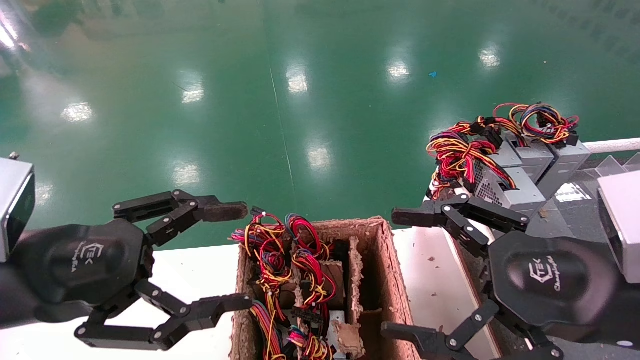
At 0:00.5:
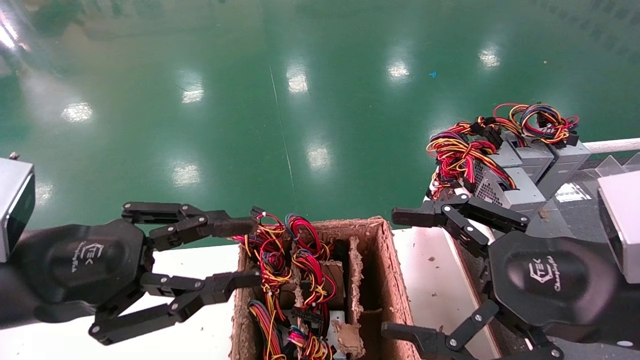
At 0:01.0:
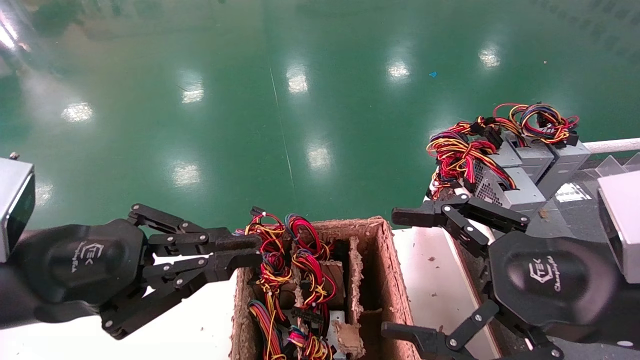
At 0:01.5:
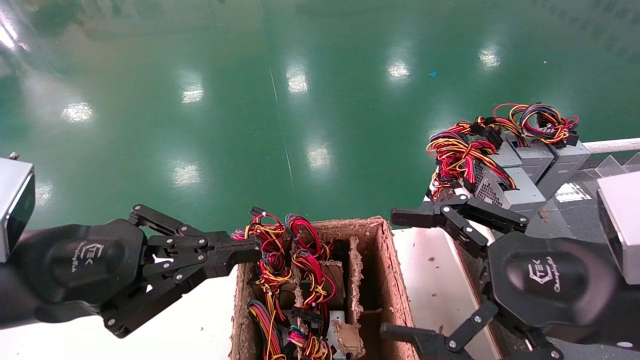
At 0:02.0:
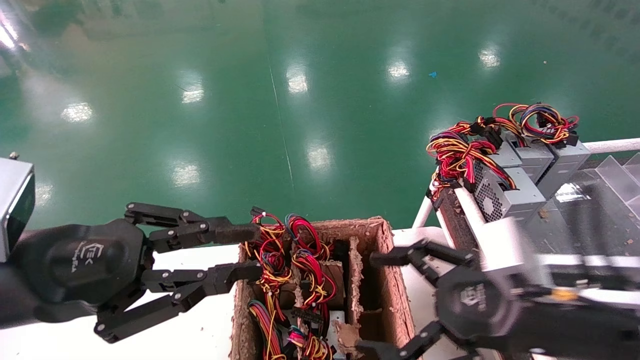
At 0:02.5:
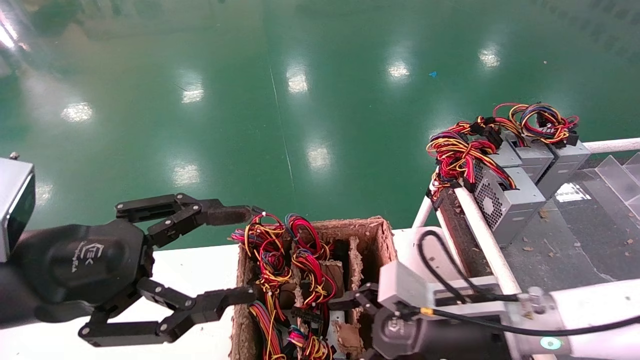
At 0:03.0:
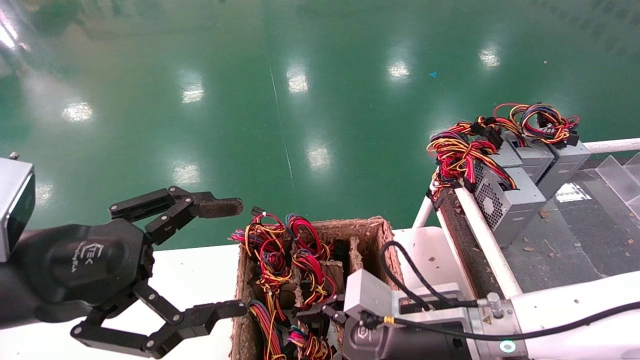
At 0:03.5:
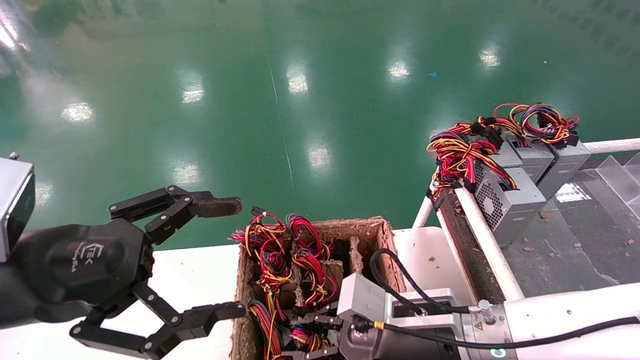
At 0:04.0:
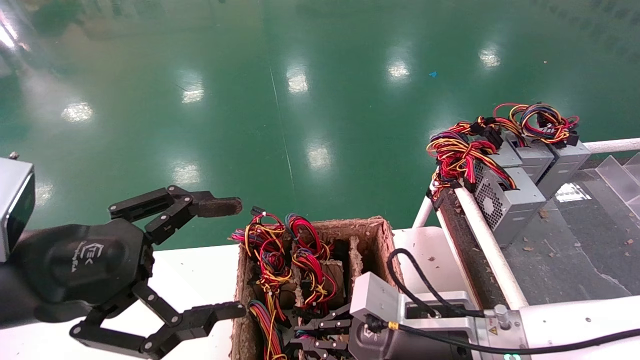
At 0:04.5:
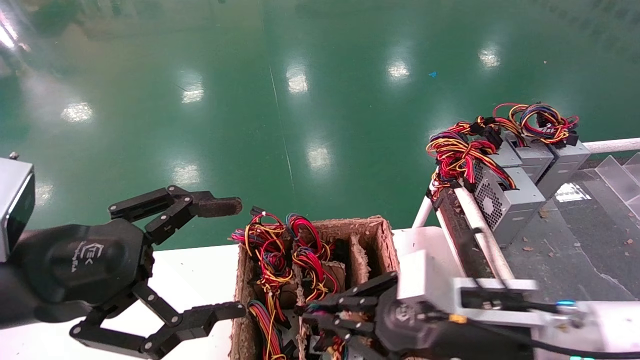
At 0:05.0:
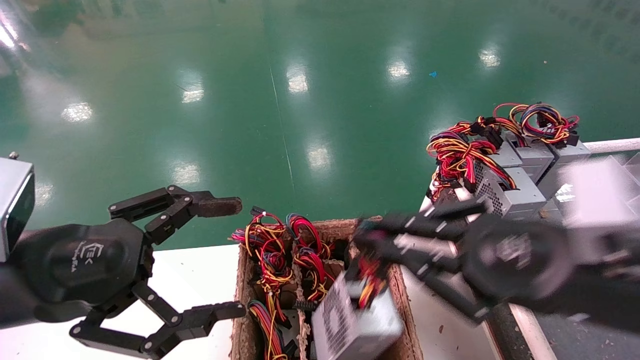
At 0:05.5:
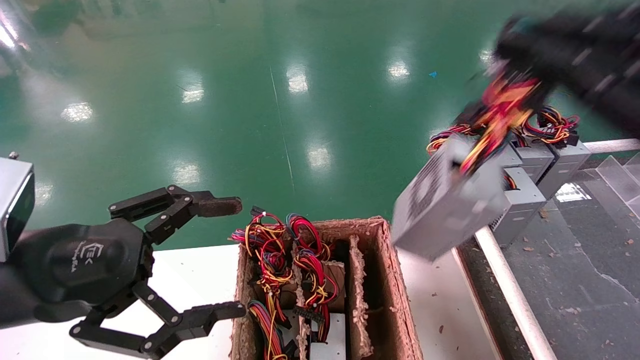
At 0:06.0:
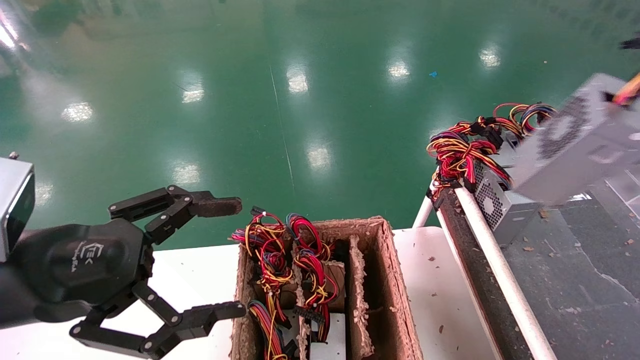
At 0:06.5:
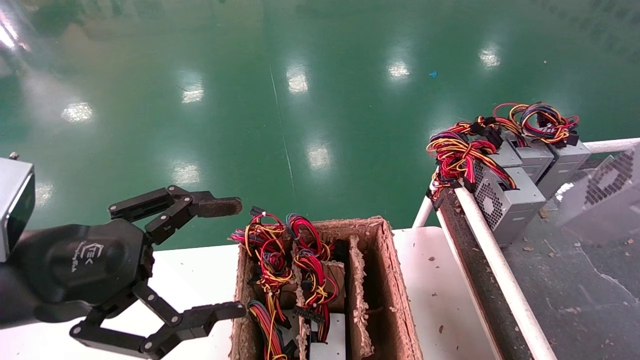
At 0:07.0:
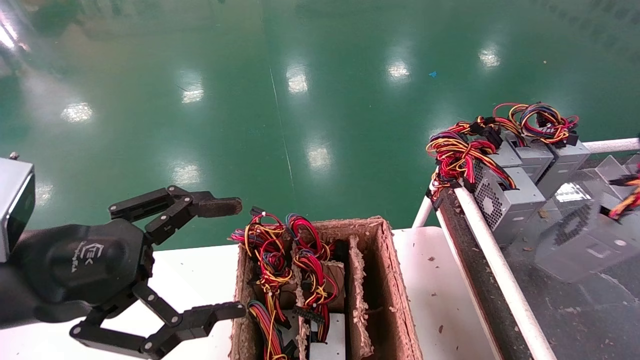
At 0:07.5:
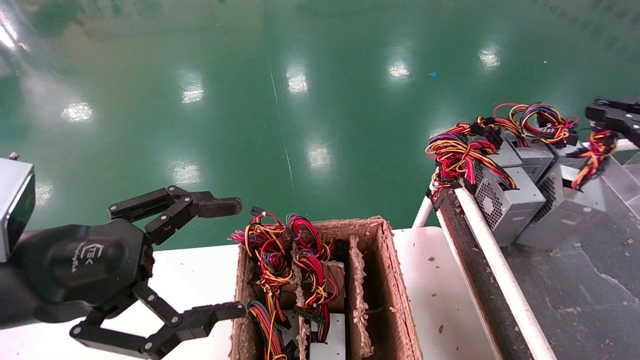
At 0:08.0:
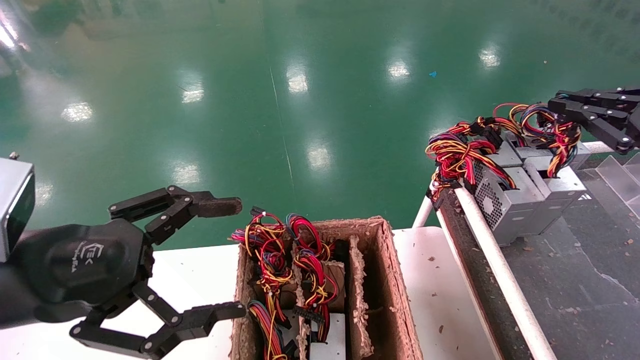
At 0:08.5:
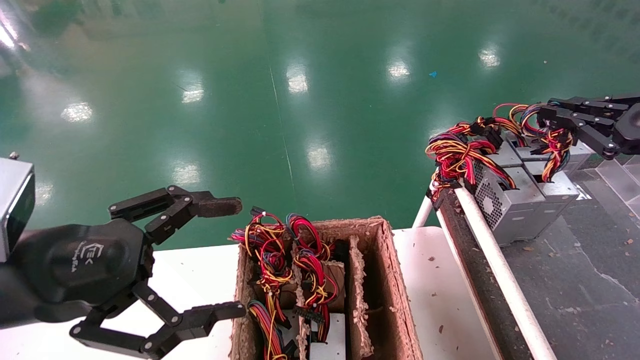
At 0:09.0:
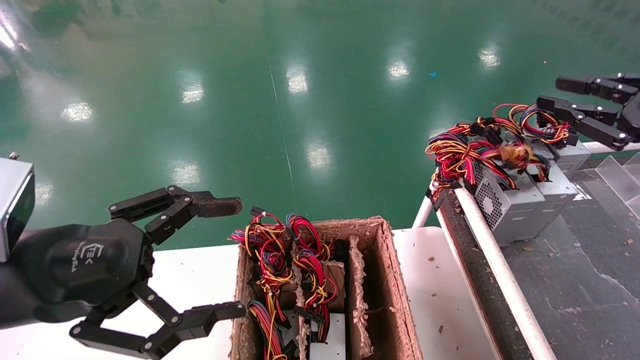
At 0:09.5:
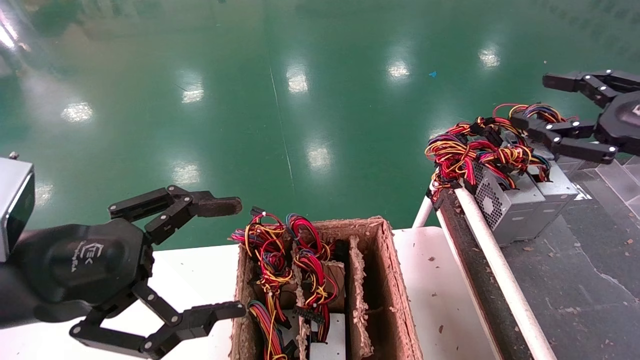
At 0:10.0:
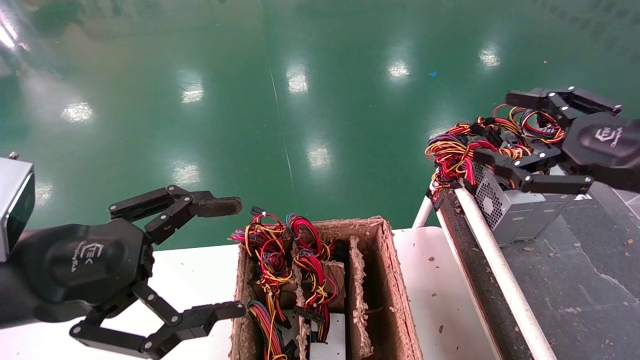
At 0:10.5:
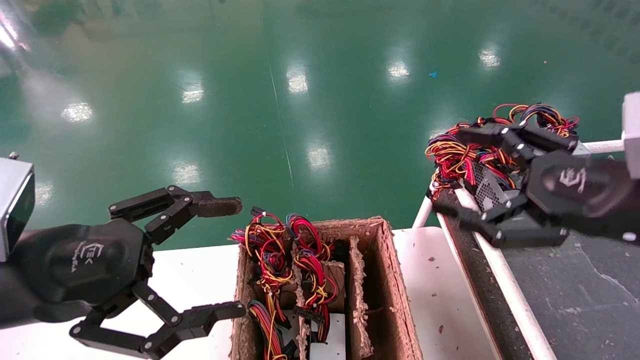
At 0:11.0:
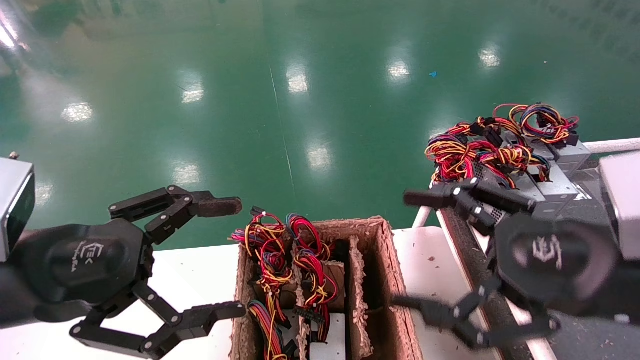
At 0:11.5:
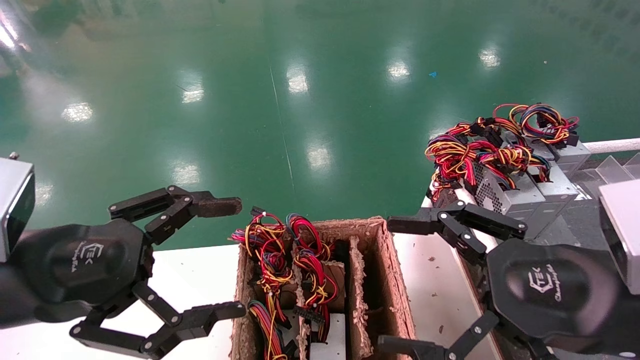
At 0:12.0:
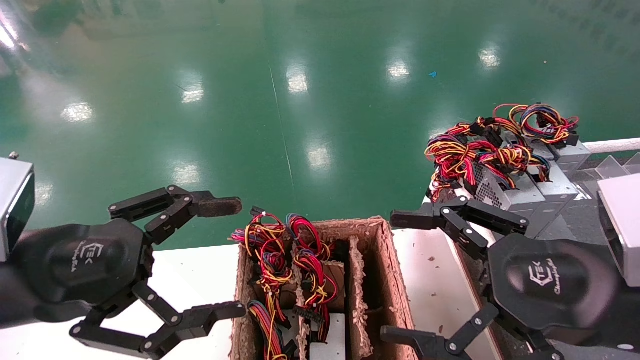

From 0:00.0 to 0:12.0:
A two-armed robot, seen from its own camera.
Step, from 0:02.0 to 0:04.0: Grab and lift the power supply from the large box.
Step, from 0:04.5 to 0:08.5: Place the power supply on the operating table.
From 0:00.0 to 0:02.0: The left gripper closes up. Meanwhile the right gripper moves downward, approximately 5 cm.
From 0:02.0 to 0:04.0: The left gripper opens up; the right gripper shifts approximately 10 cm to the left, downward and forward, and closes up.
From 0:04.0 to 0:06.0: The right gripper is displaced upward, to the right and backward by roughly 40 cm.
From 0:06.0 to 0:08.0: The right gripper travels forward and downward by some 15 cm.
From 0:08.0 to 0:10.0: The right gripper goes approximately 10 cm to the left, and opens its fingers.
From 0:10.0 to 0:12.0: The right gripper goes roughly 15 cm to the left, backward and downward.

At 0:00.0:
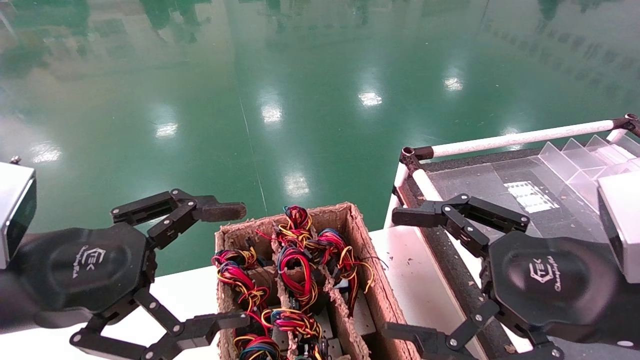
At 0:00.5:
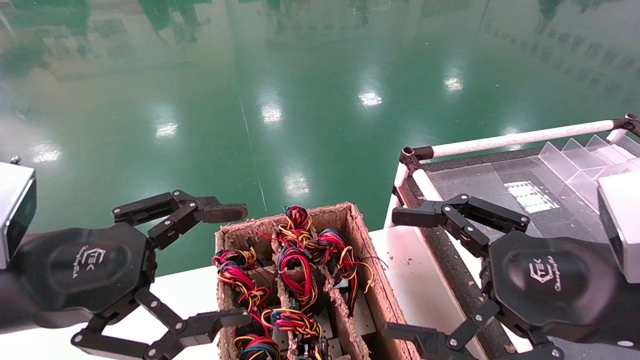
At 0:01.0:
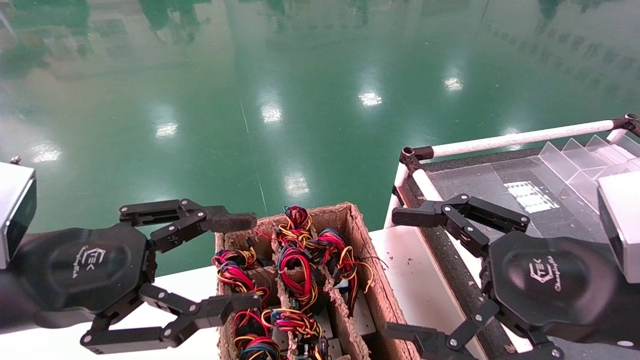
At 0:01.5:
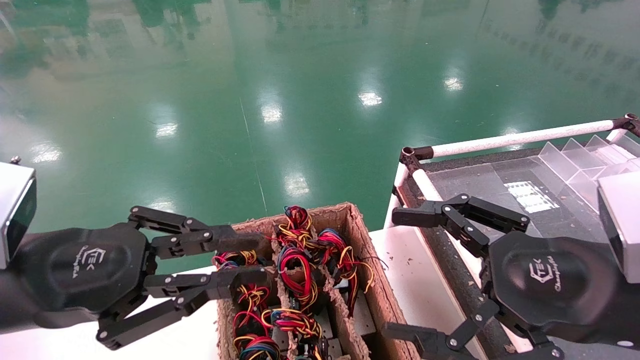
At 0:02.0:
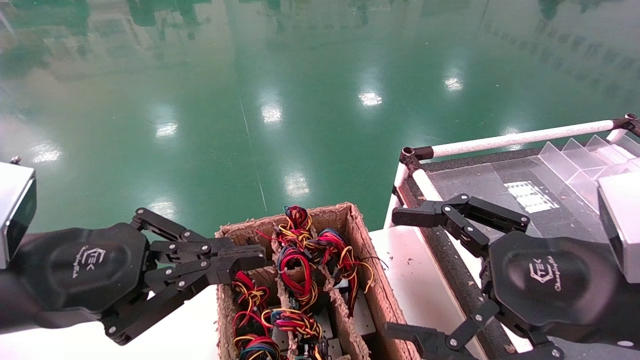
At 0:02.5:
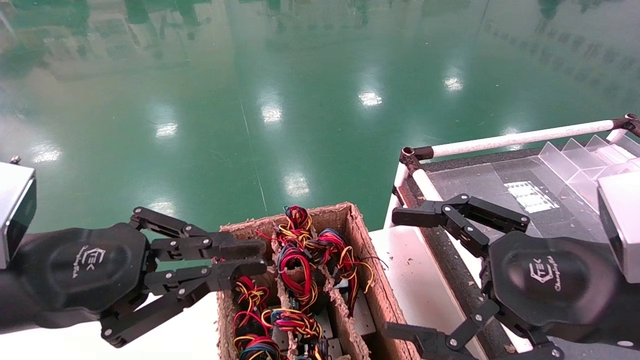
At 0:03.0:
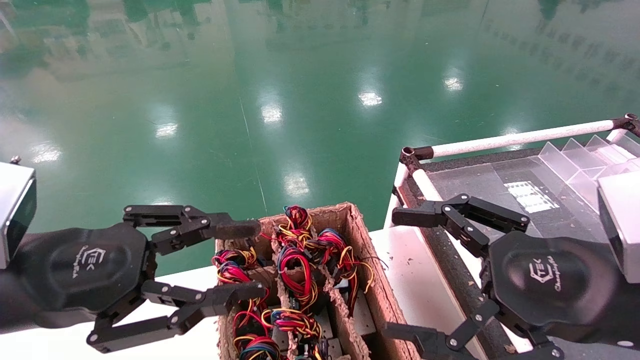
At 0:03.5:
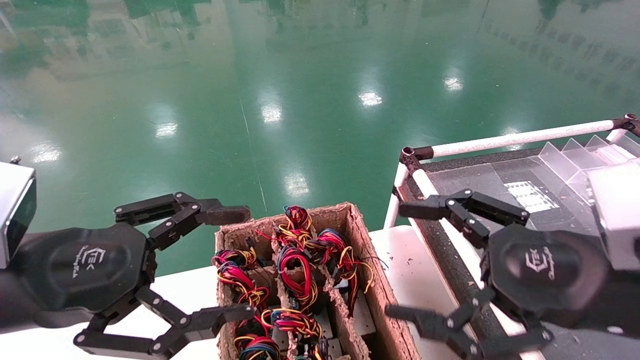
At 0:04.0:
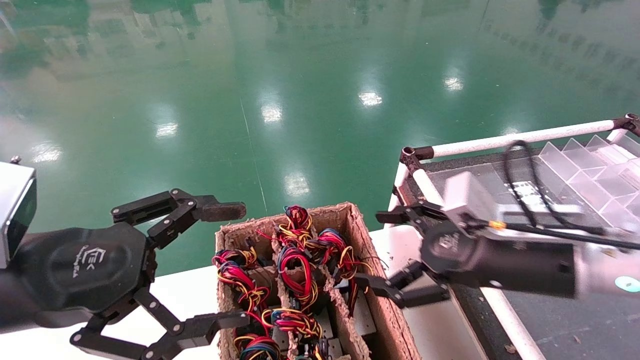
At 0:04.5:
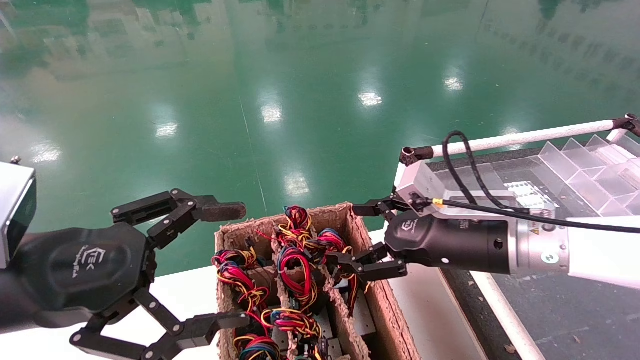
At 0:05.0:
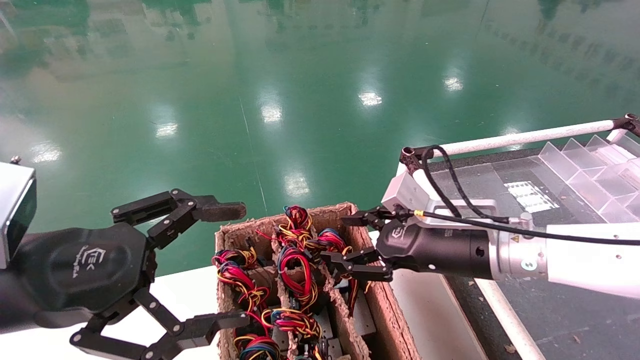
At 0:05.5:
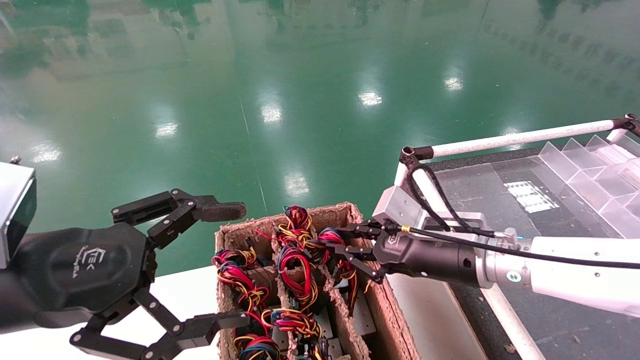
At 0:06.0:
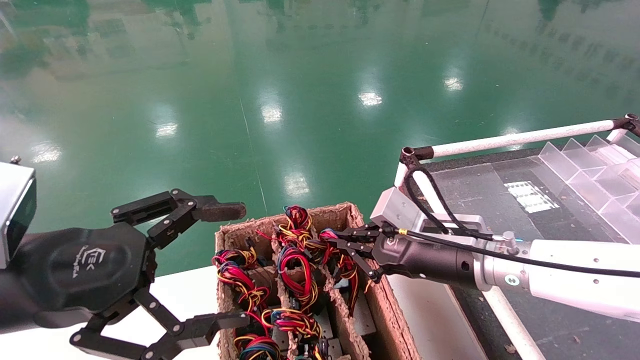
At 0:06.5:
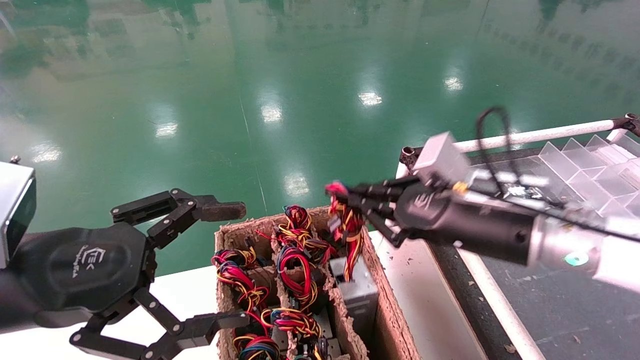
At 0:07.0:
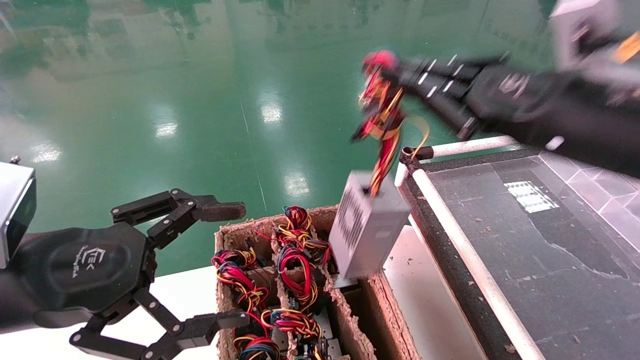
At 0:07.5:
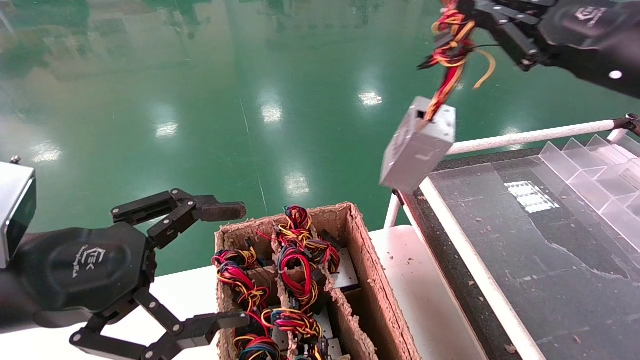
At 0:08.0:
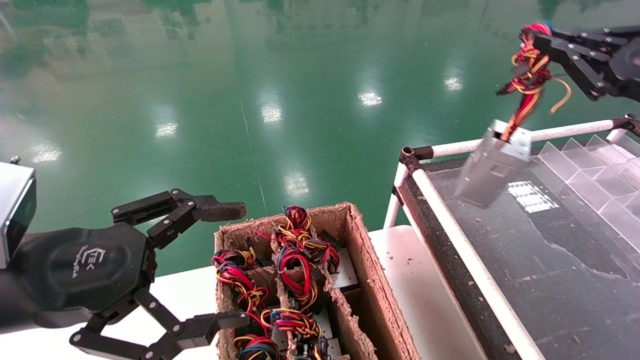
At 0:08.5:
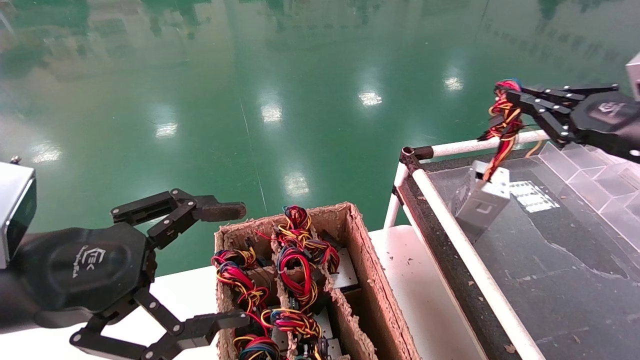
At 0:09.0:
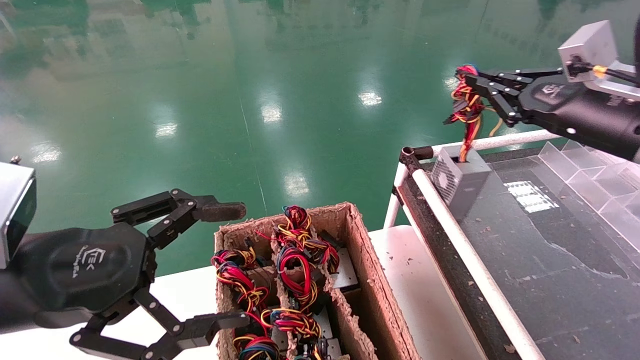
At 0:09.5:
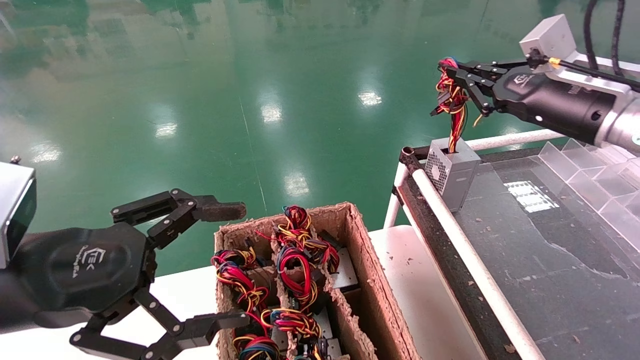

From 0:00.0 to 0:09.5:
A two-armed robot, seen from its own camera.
Step, from 0:02.0 to 0:05.5: Grab and lift the power supply from the large box.
From 0:00.0 to 0:02.0: The left gripper closes up.
From 0:02.0 to 0:04.0: The right gripper shifts roughly 10 cm forward, while the left gripper opens its fingers.
From 0:04.0 to 0:05.5: The right gripper moves forward and to the left, some 10 cm, and closes up.
From 0:05.5 to 0:07.5: The right gripper moves upward and to the right, approximately 25 cm.
From 0:07.5 to 0:09.5: The right gripper is displaced forward by some 10 cm.
